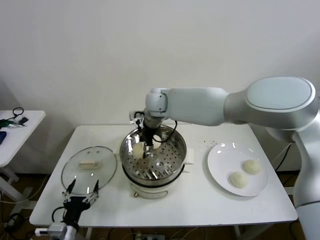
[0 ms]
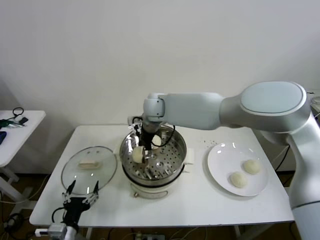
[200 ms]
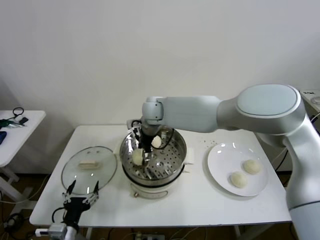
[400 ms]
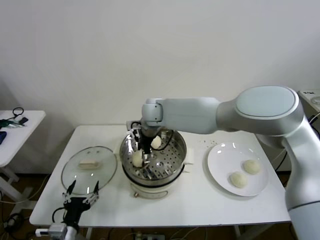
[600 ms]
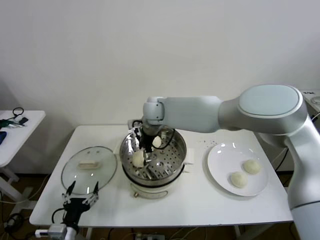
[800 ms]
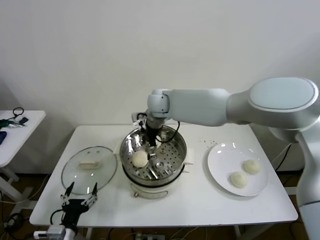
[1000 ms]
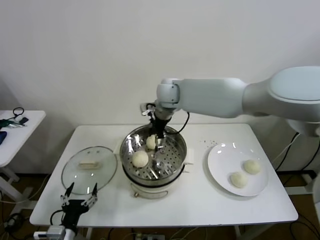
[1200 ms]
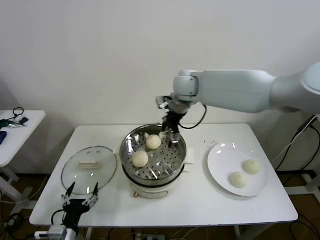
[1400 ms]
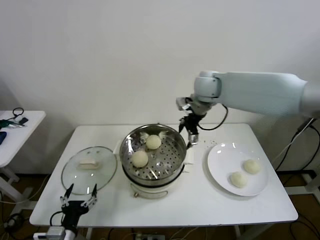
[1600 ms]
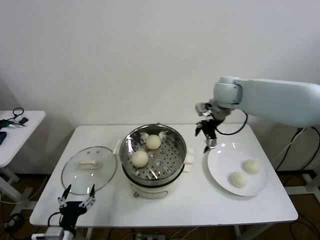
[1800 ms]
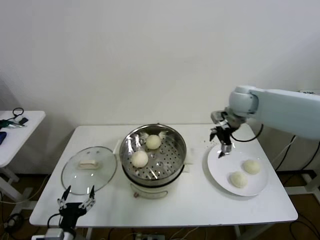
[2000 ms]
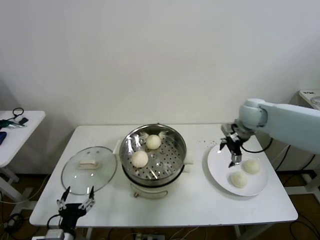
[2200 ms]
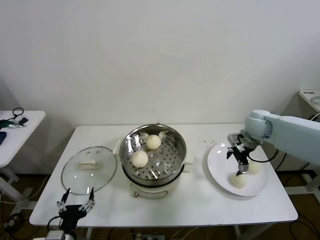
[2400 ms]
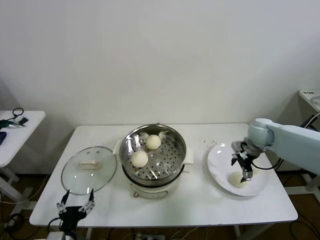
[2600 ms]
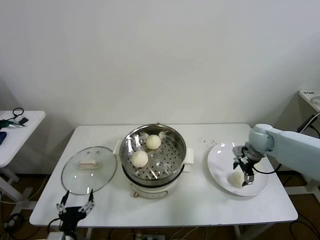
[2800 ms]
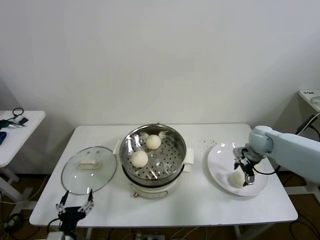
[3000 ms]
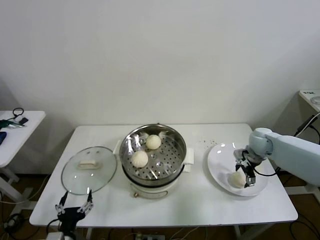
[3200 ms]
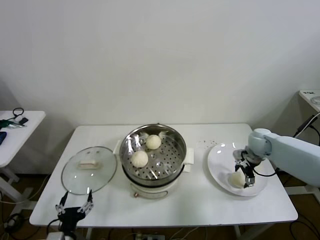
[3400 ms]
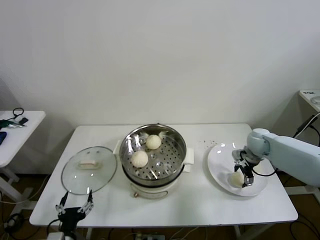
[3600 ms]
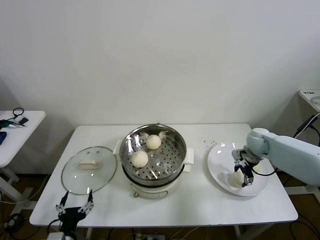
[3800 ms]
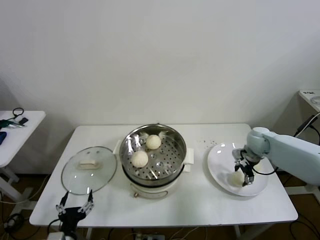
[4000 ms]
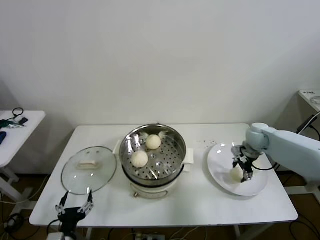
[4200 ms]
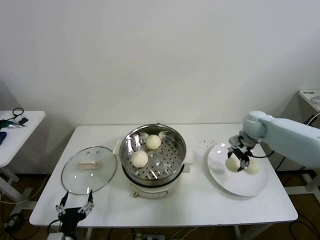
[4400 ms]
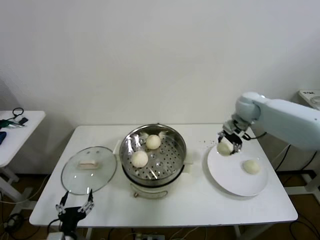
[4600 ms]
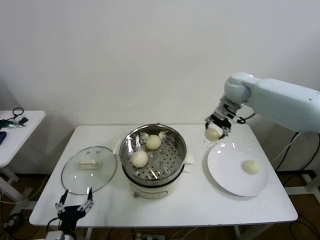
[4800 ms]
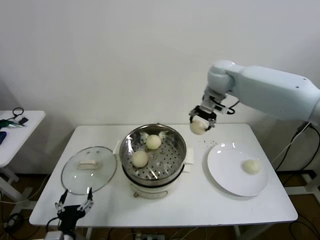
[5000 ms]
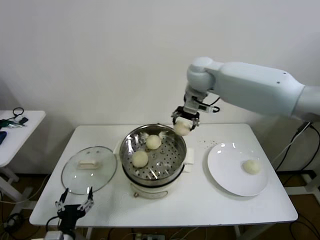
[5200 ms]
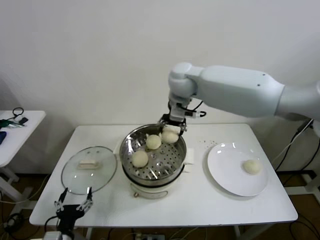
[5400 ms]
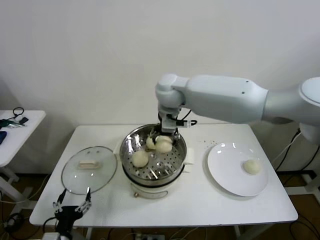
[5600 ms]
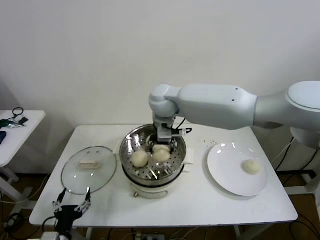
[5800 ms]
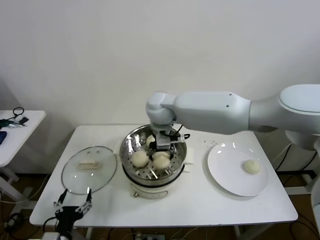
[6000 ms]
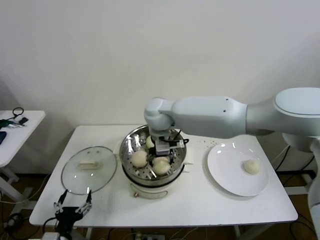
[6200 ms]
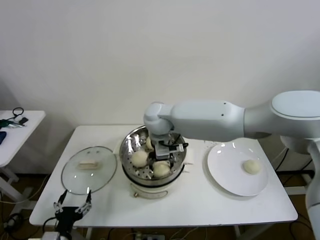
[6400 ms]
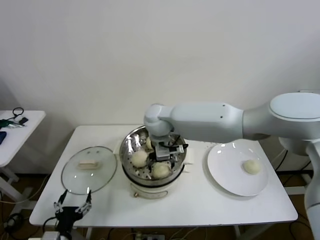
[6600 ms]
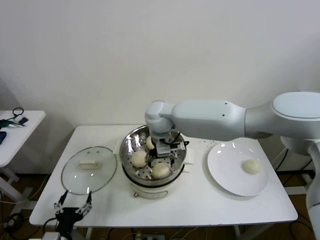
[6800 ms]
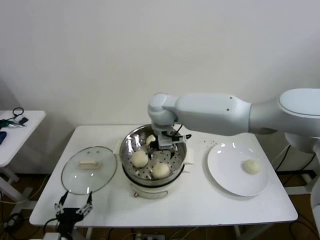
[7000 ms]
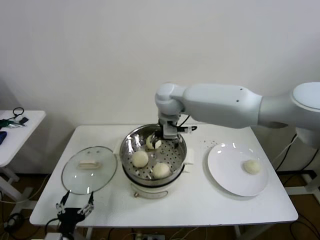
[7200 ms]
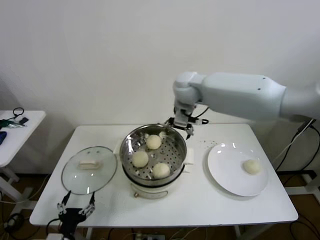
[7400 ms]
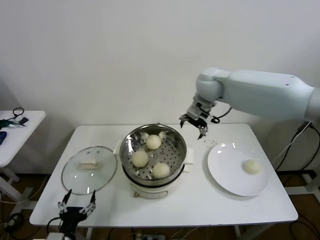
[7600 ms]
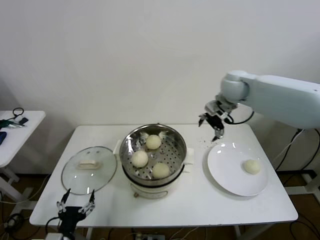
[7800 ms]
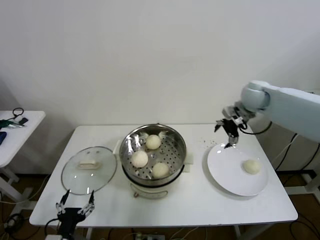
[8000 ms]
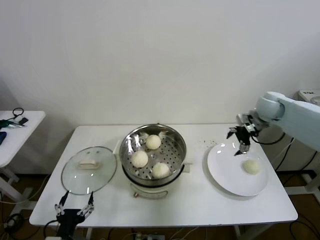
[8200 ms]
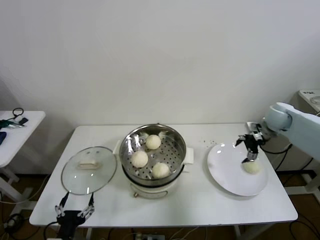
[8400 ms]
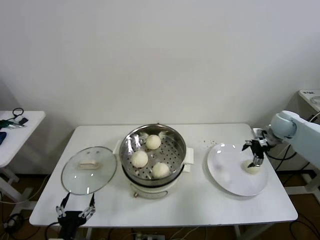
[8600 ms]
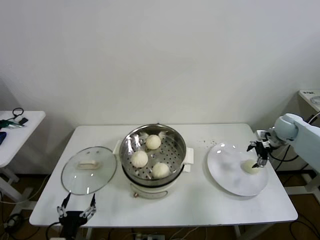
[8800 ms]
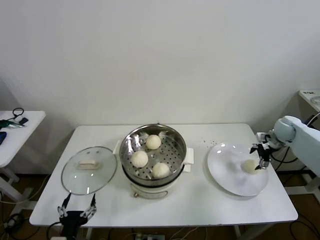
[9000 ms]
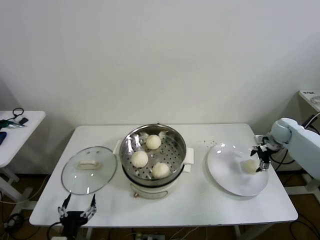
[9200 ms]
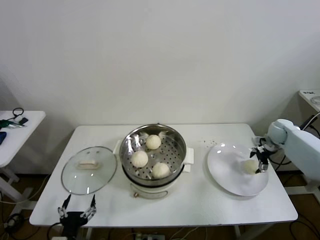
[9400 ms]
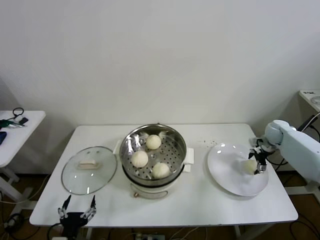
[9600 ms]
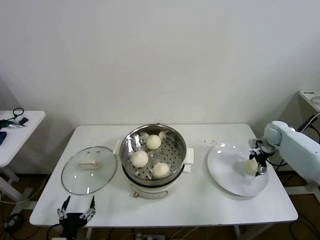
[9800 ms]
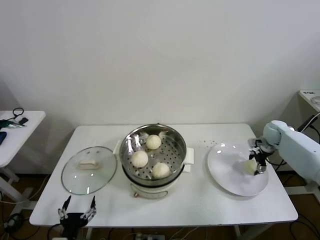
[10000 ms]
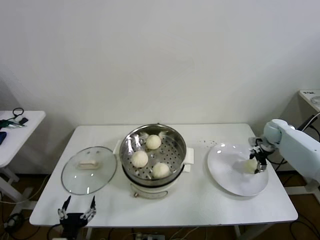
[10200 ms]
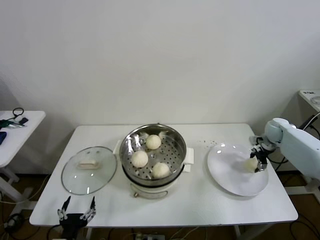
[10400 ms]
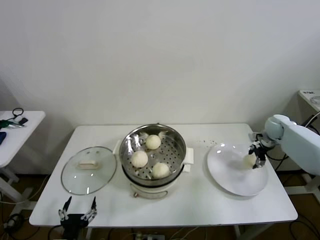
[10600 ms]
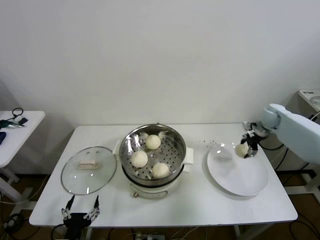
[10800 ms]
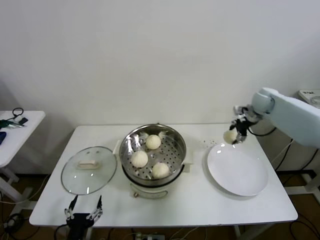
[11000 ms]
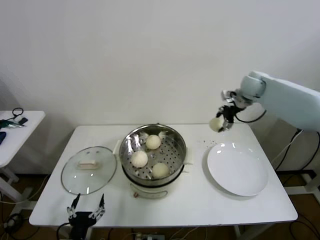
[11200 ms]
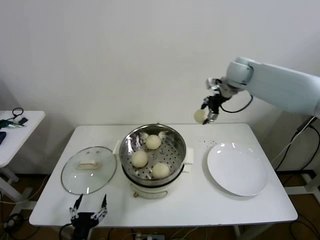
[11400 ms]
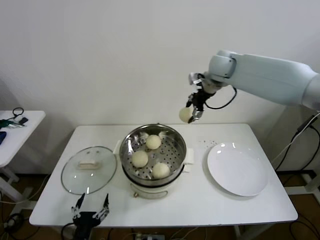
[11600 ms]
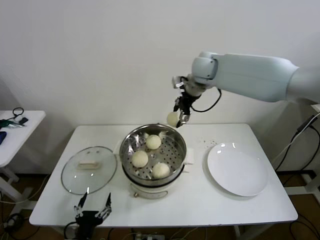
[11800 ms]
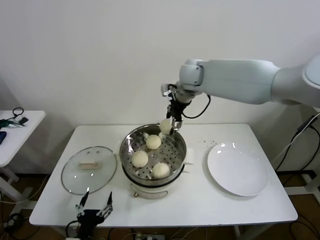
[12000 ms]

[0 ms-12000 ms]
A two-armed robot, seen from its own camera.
Step, 800 ms to 3800 ms: Grasp the baozi in the plate with right gripper.
Step, 4000 ms to 6600 ms: Place the baozi on the steamer with right gripper.
Step, 6800 ms to 10000 ms: Grasp the baozi in the plate with right gripper.
0 ms to 1600 ms: The right gripper goes approximately 20 cm to the right.
1600 ms to 3000 ms: The right gripper shifts about 30 cm to the right and downward.
3000 ms to 4400 ms: The right gripper goes about 5 cm upward.
4400 ms to 6000 ms: The right gripper moves to the left, roughly 35 cm.
6000 ms to 7600 ms: The right gripper heads to the right, covering approximately 15 cm.
7600 ms to 9000 ms: The right gripper travels to the right and downward by some 35 cm.
9000 ms to 10400 ms: There are only small adjustments of the grippers.
10400 ms to 12000 ms: The right gripper travels to the left and upward by roughly 40 cm.

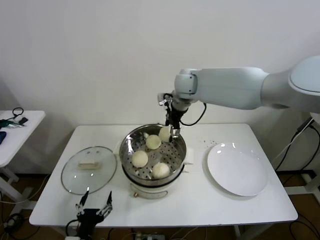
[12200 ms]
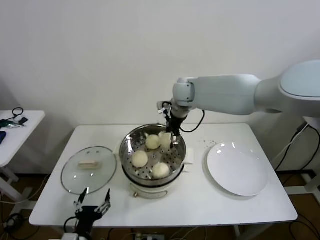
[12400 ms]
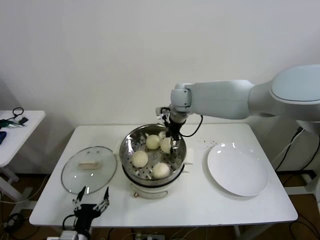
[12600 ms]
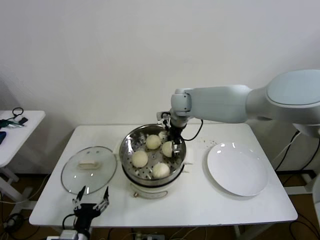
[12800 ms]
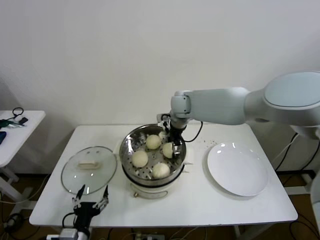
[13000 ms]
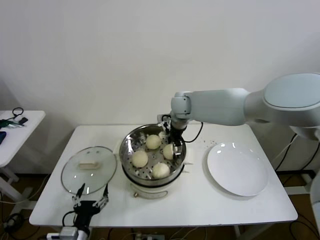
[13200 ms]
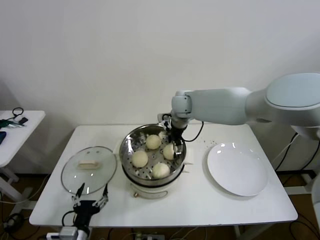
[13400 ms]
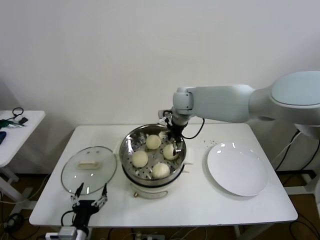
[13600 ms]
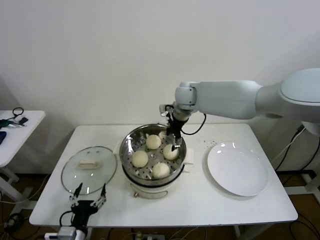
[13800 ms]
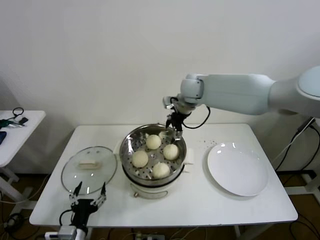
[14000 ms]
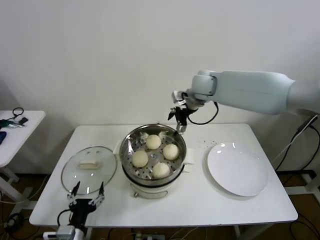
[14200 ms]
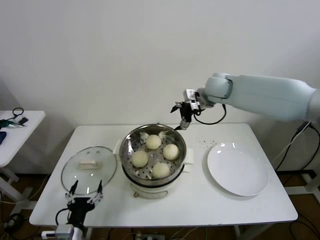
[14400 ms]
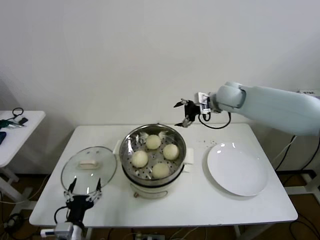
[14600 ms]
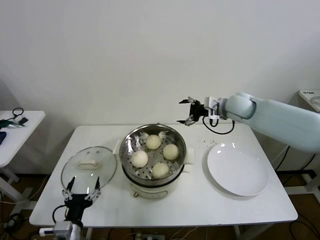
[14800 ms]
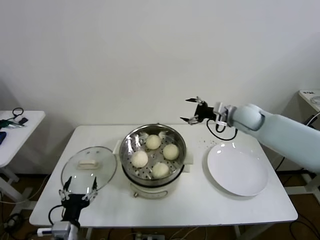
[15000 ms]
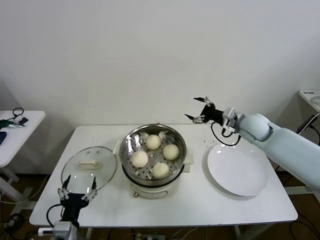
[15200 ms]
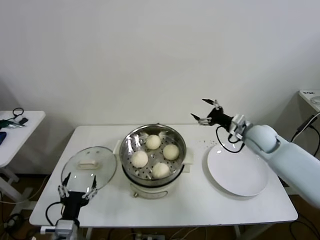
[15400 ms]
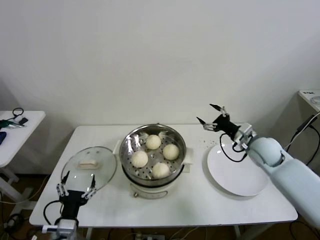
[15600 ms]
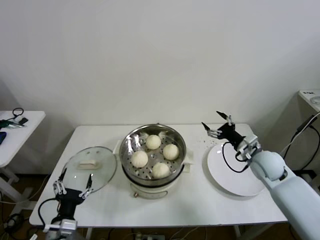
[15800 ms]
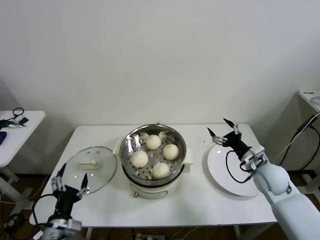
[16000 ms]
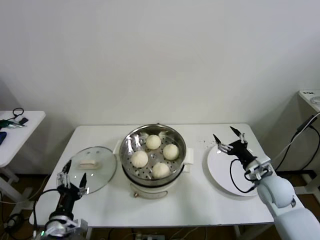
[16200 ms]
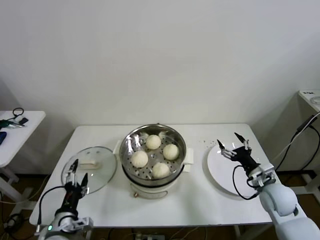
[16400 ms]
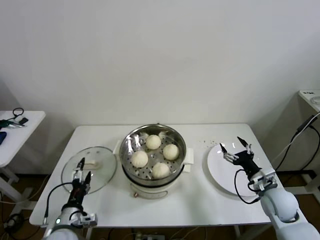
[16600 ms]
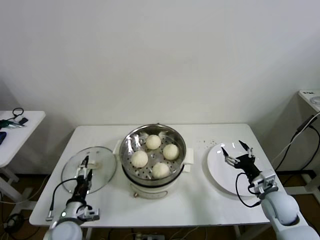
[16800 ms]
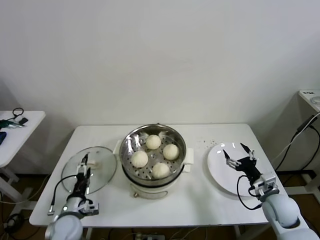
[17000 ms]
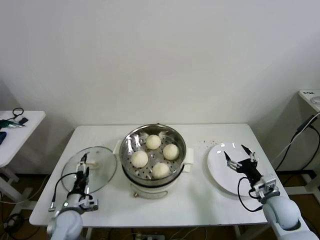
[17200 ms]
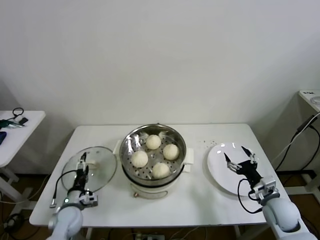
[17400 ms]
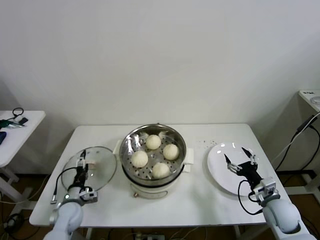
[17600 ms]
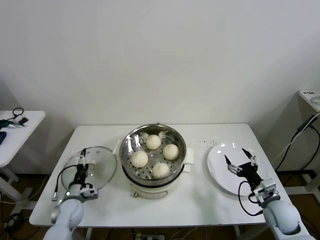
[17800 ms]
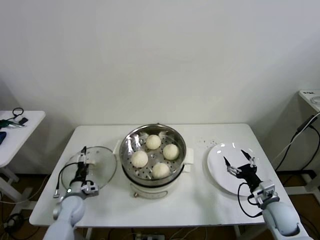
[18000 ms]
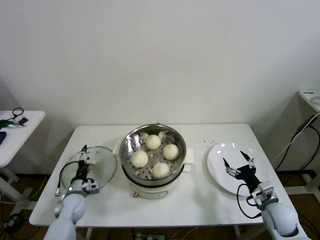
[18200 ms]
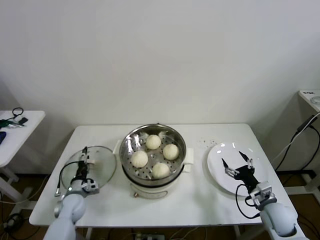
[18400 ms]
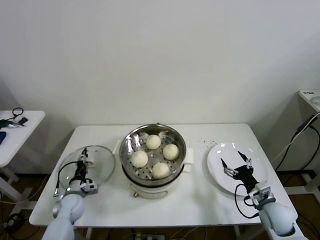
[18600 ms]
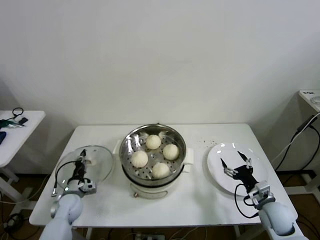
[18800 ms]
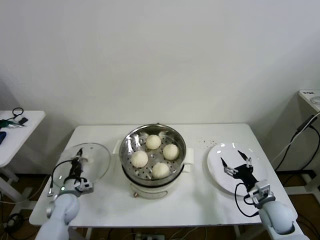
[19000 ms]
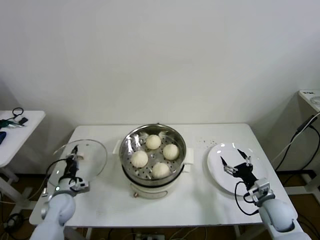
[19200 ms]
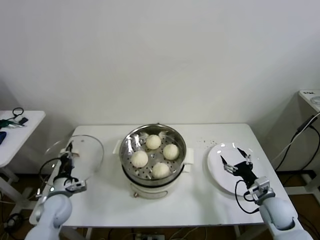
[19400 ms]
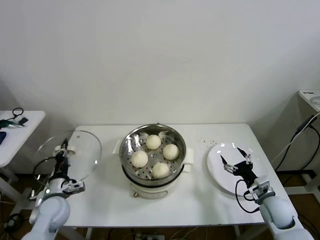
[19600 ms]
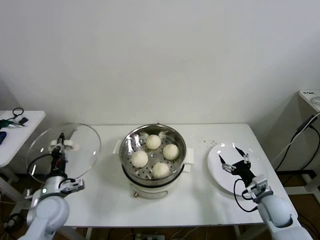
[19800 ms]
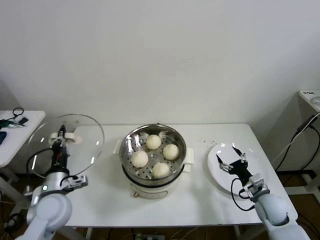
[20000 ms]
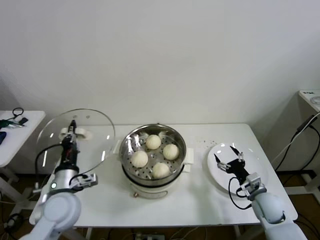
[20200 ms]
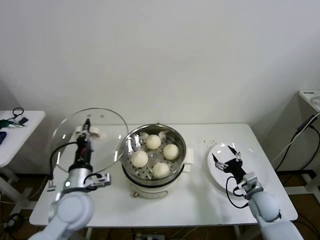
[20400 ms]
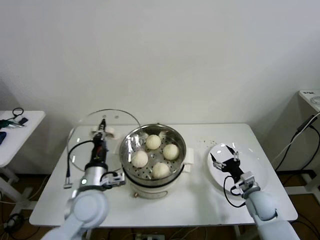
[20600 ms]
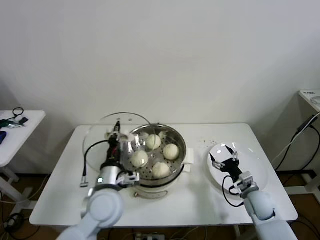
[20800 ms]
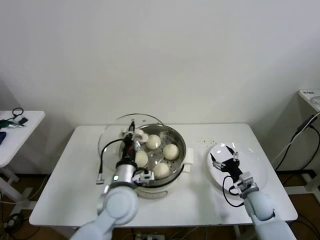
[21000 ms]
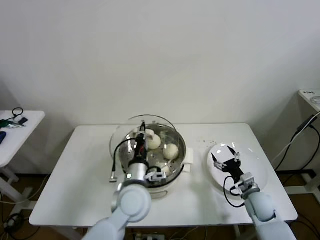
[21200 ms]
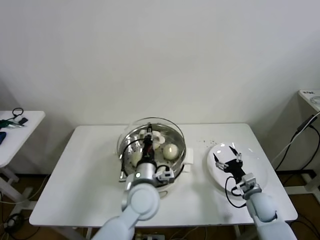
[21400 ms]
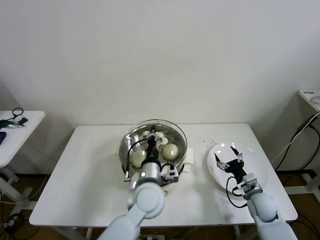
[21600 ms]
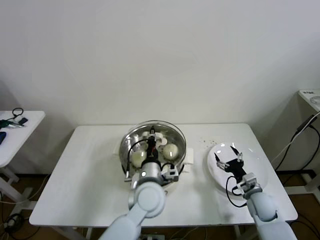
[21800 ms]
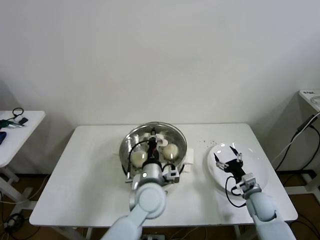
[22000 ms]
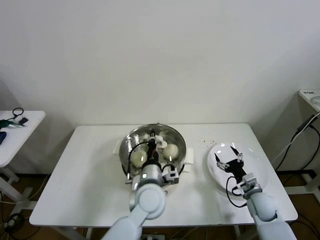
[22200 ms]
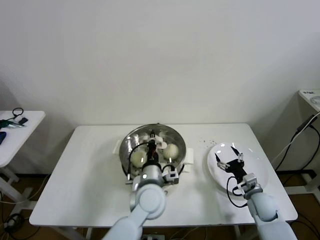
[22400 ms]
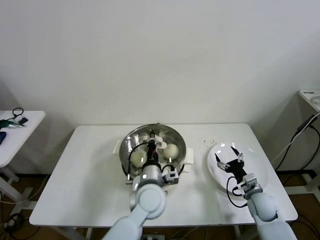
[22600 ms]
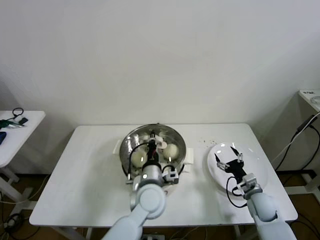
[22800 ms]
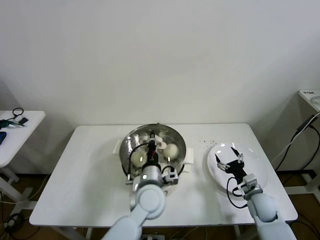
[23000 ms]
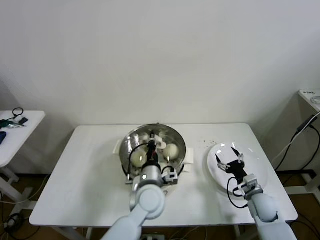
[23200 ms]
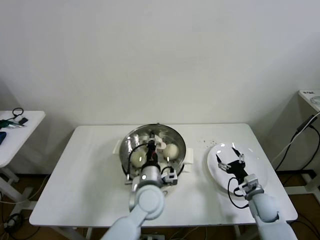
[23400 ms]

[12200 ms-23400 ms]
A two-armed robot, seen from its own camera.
Step, 13400 ms to 18800 ms: Grasp the pot lid with left gripper.
13800 ms to 15400 ms: The right gripper is displaced to the right, downward and backward by about 30 cm.
15400 ms to 17000 ms: The left gripper heads forward and downward, covering some 10 cm. The right gripper heads backward and downward, covering approximately 25 cm.
17000 ms to 18600 ms: The left gripper travels forward and downward by about 10 cm, and closes up.
18600 ms to 20200 ms: The left gripper heads upward, covering about 20 cm, and closes up.
20200 ms to 21800 ms: The left gripper moves to the right, roughly 25 cm.
21800 ms to 23400 ms: The grippers stay close to where they were, moving slightly.
